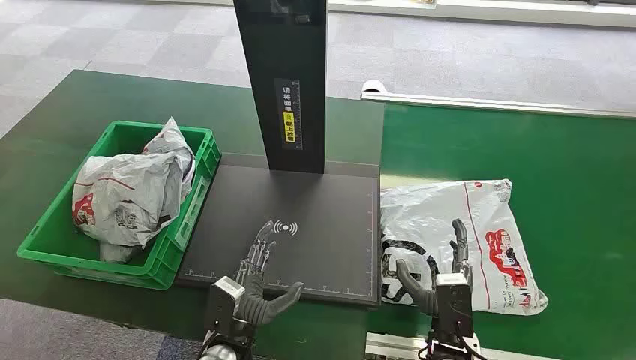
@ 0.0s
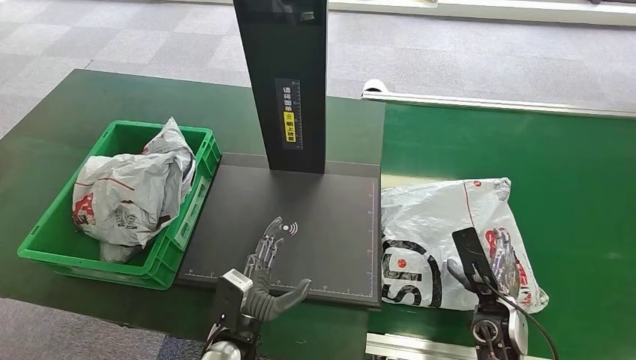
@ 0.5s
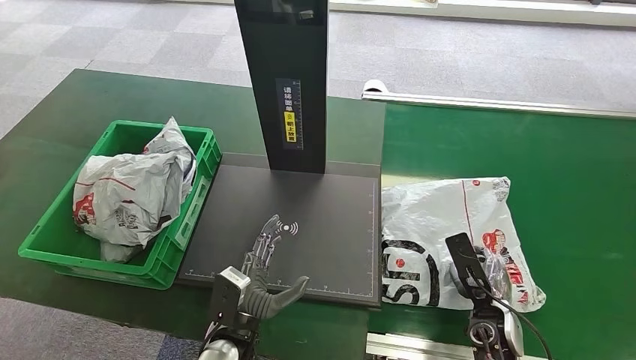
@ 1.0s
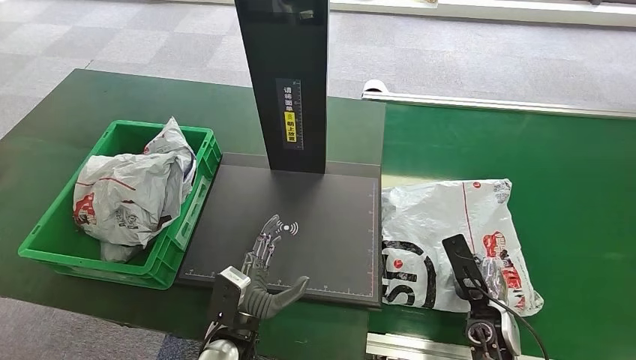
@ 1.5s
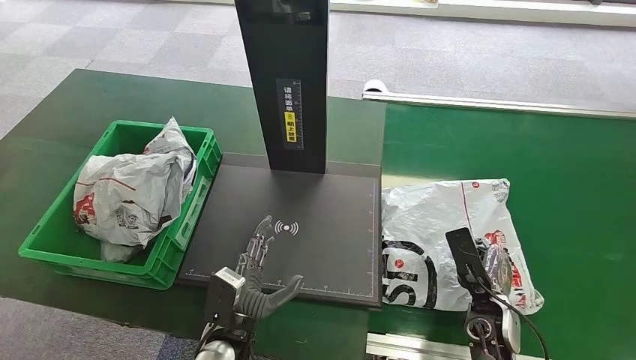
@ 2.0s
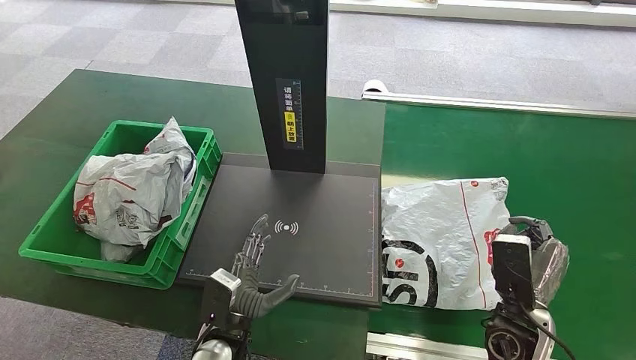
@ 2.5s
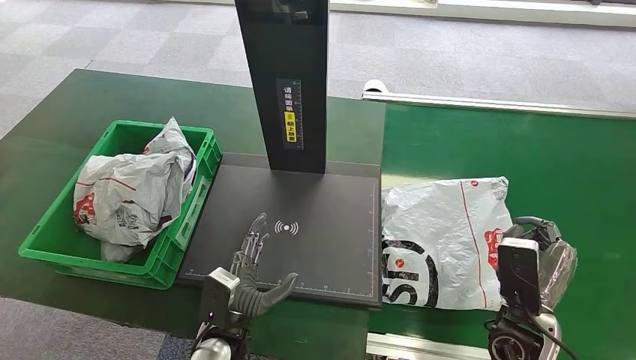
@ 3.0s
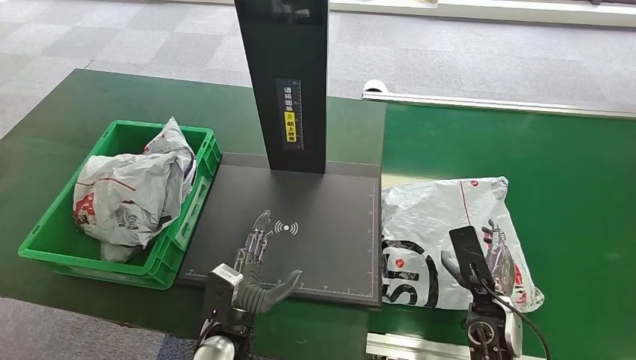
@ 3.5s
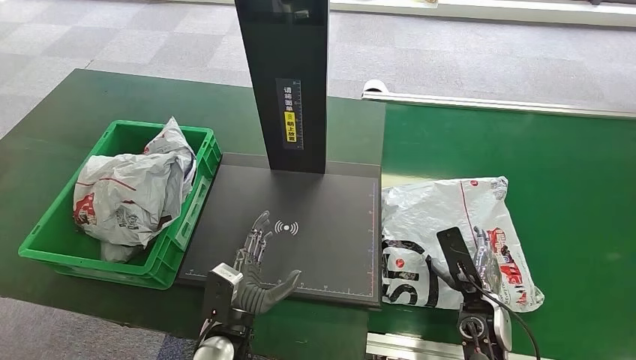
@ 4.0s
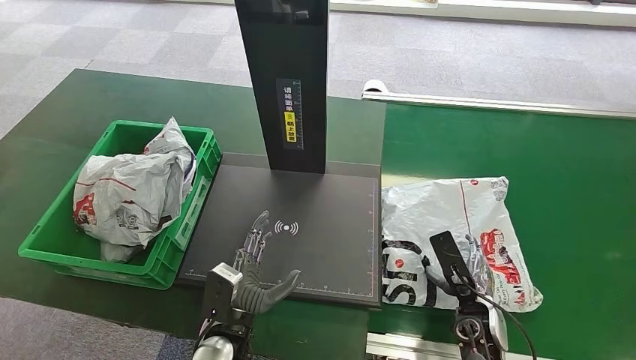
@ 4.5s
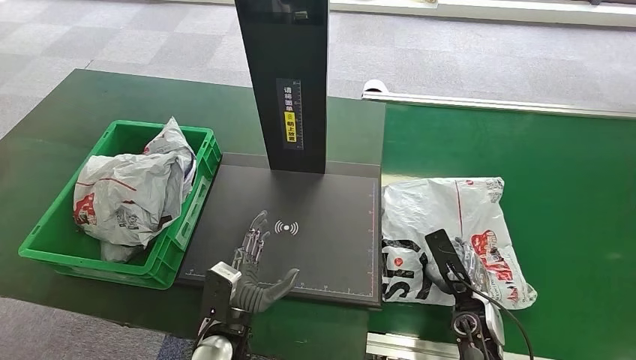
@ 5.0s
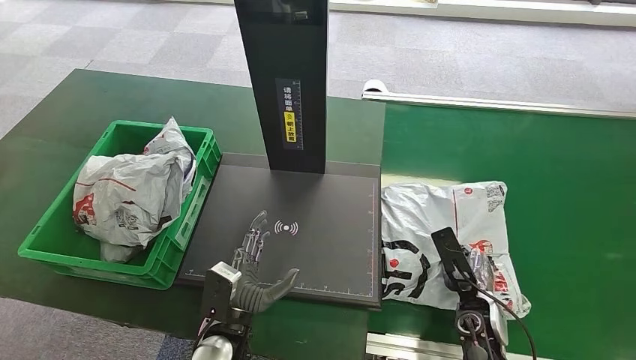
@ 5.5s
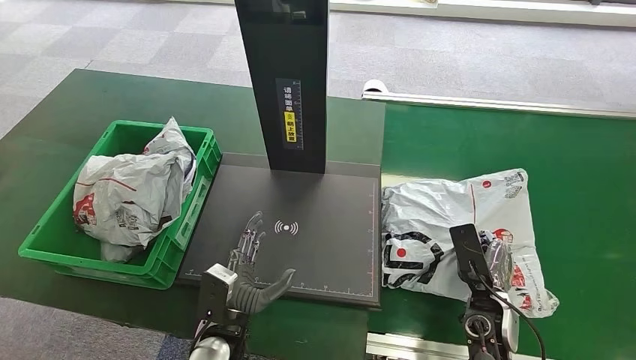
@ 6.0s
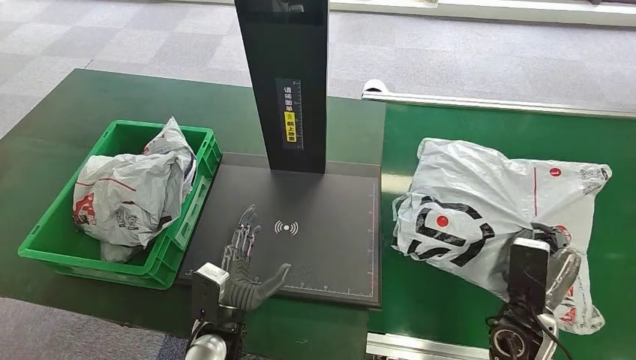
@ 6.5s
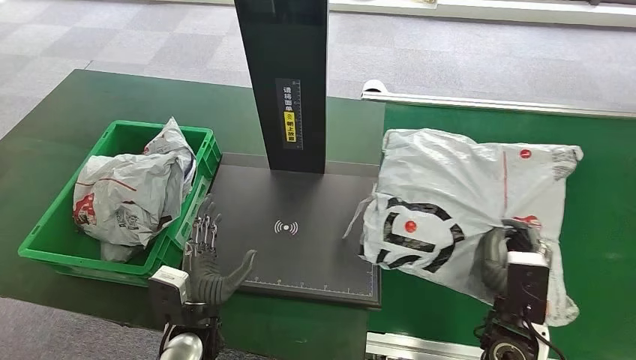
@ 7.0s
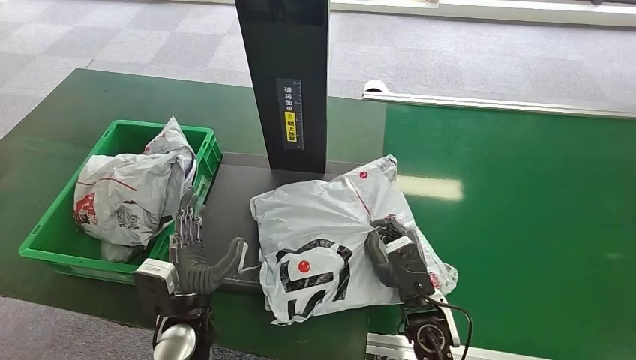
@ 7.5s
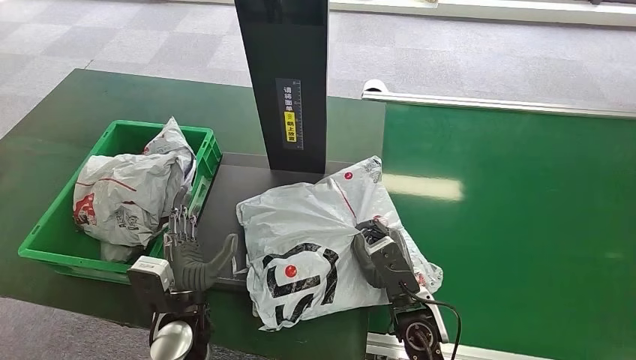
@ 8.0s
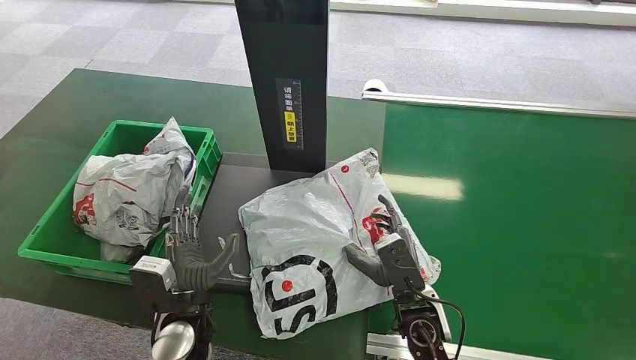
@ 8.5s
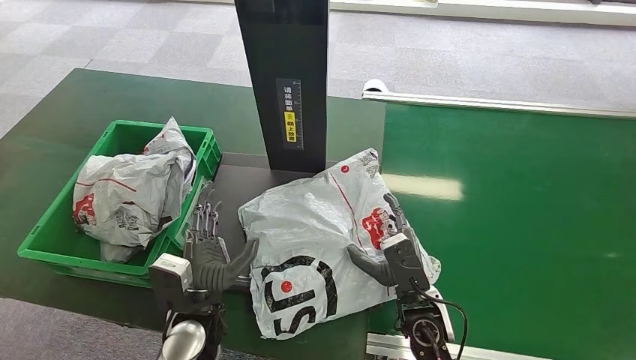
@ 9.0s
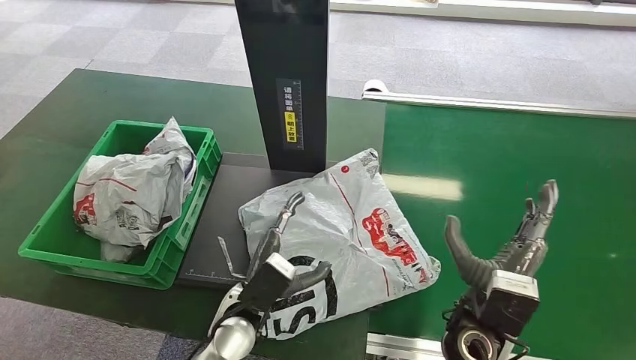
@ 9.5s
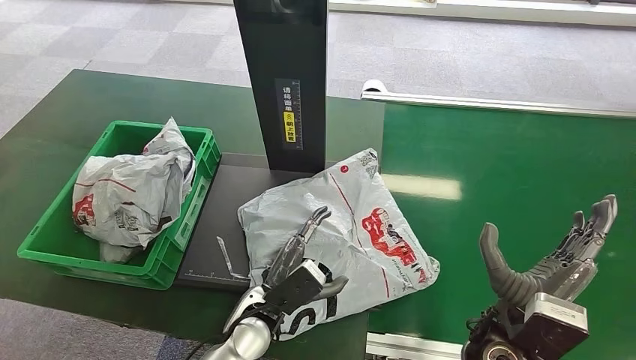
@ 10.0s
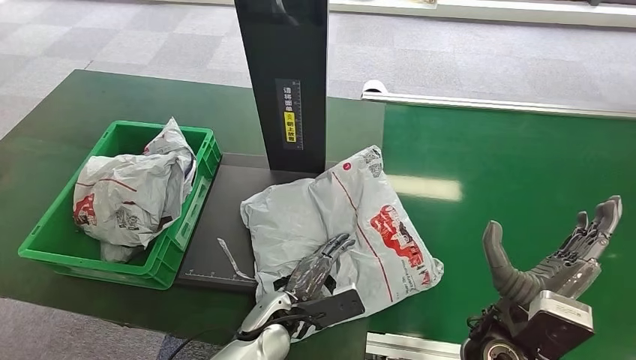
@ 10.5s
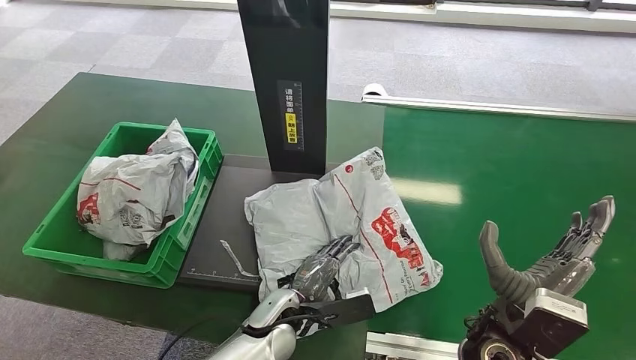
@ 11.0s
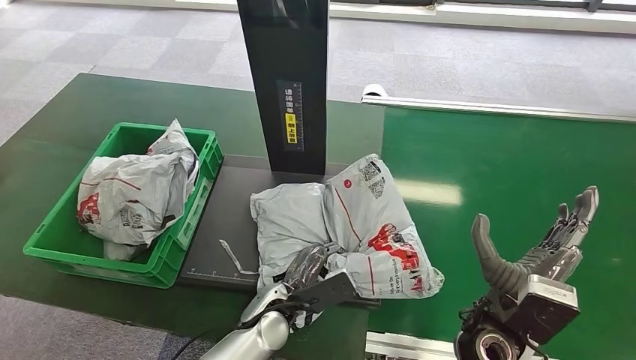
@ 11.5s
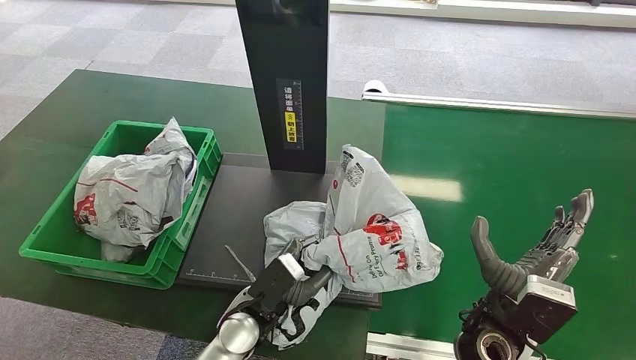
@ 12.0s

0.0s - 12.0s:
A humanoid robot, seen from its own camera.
Task of the whole recording: Weigh the package on the weighing device and place it in the left basket.
Step, 0.0s - 6.5s: Pick up the package from the conveyor belt.
Step, 7.0s - 8.0s: Place the package onto the inbound machine.
2.0s - 4.0s: The right hand goes upward and returns, approximately 10 cm each way.
4.0s - 6.0s: The hands make only small movements.
8.0s - 10.0s: The left hand moves to the right, some 10 cm, while the right hand goes roughly 10 cm to the right and upward.

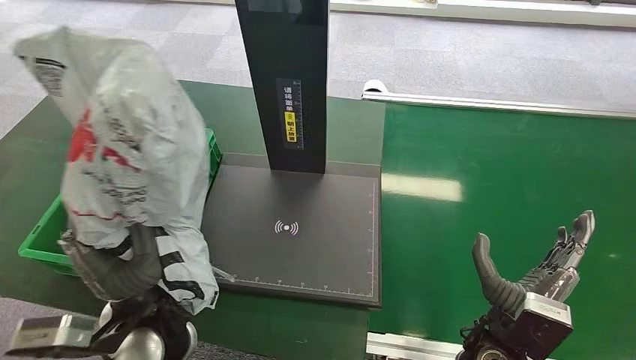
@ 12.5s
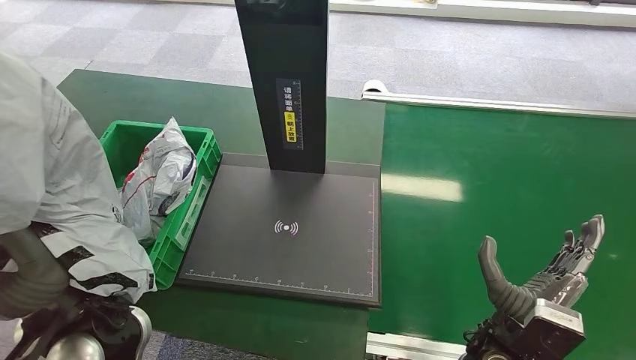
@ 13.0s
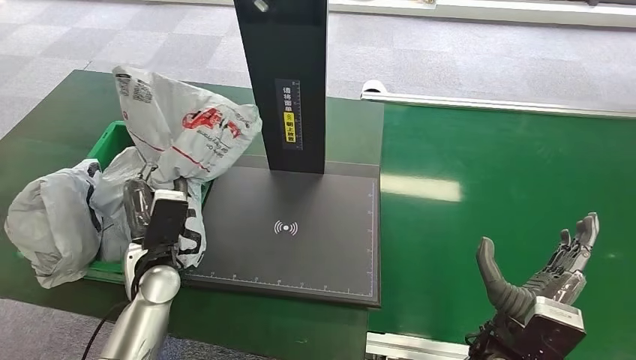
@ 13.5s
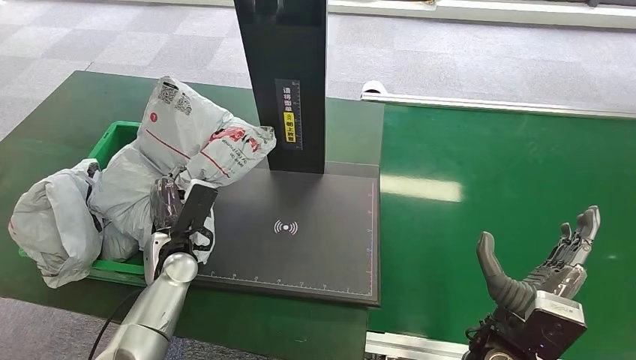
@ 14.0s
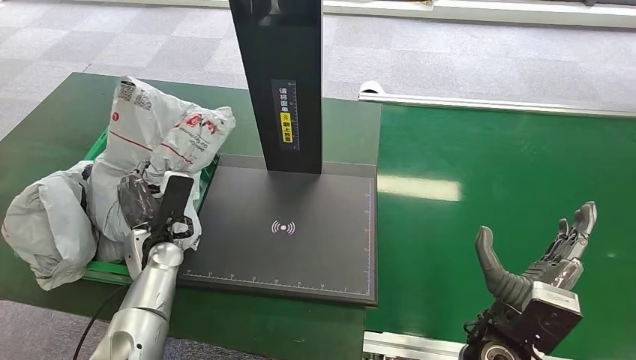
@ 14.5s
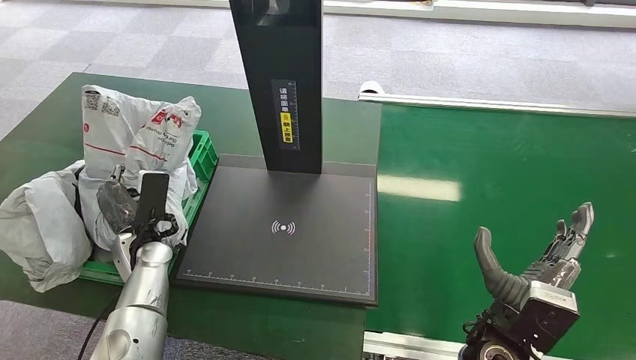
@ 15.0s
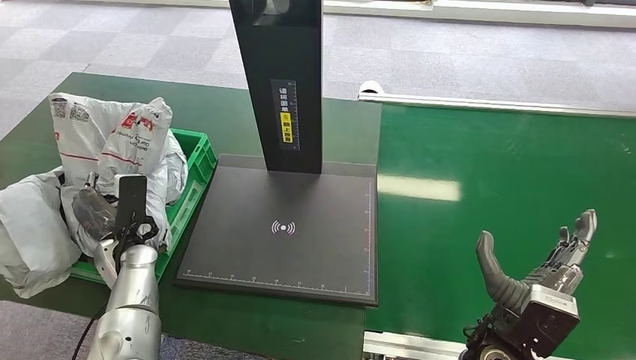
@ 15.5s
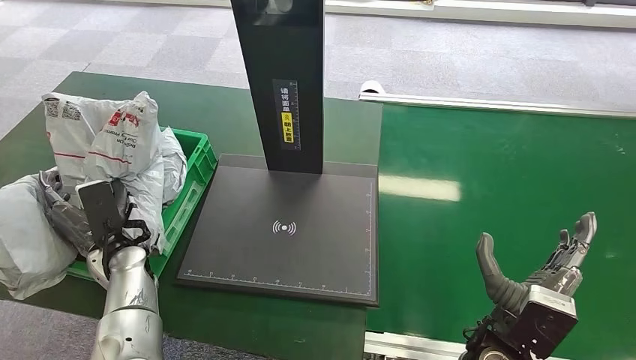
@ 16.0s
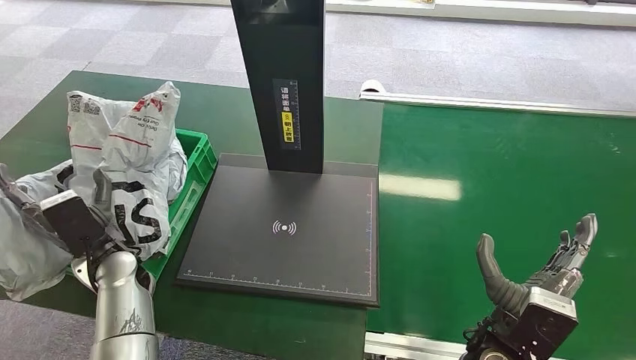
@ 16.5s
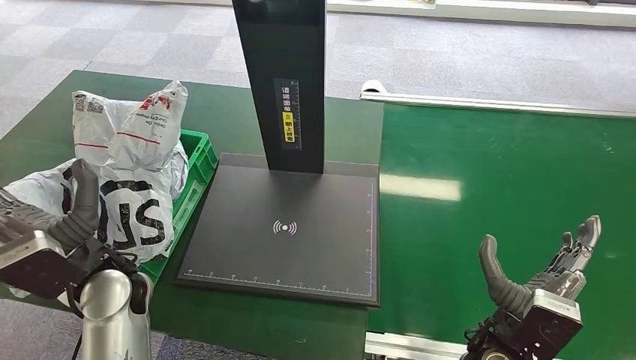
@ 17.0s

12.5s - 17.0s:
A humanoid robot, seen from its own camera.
Task of the whole recording: Weigh the package on the weighing device and place it in the left basket.
Step, 13.0s - 17.0s: Place the package into the parcel locker.

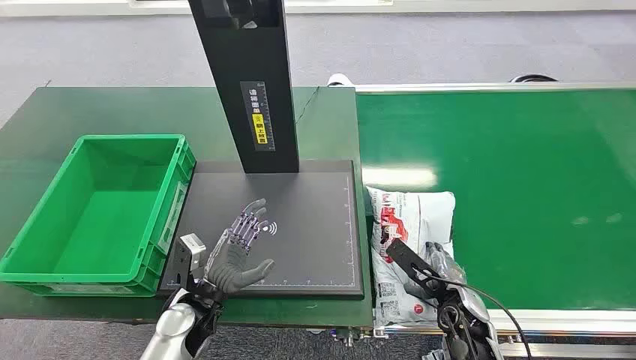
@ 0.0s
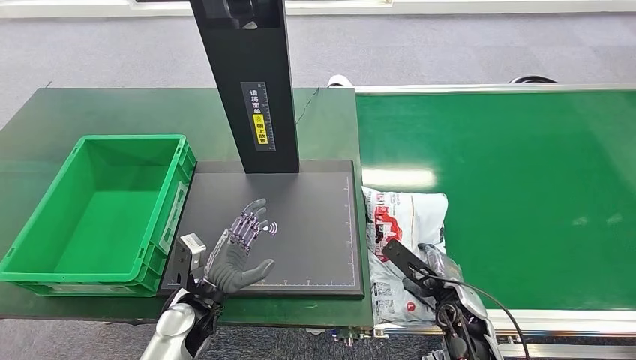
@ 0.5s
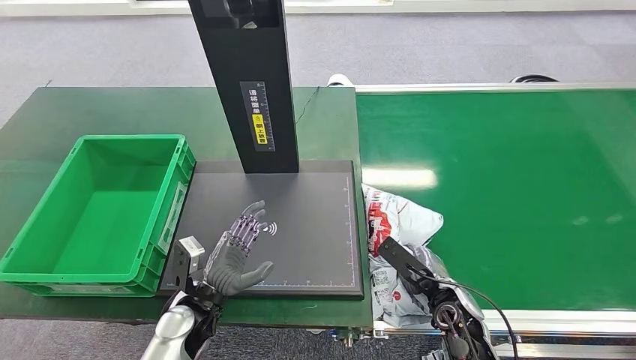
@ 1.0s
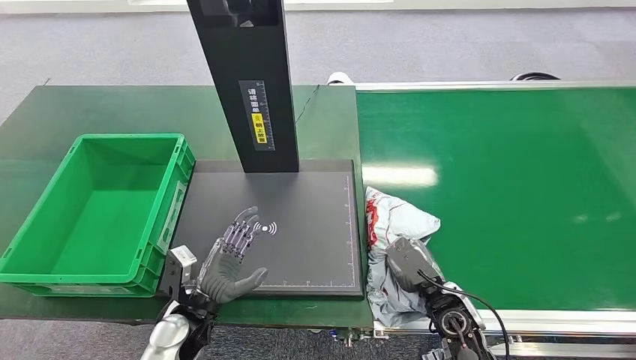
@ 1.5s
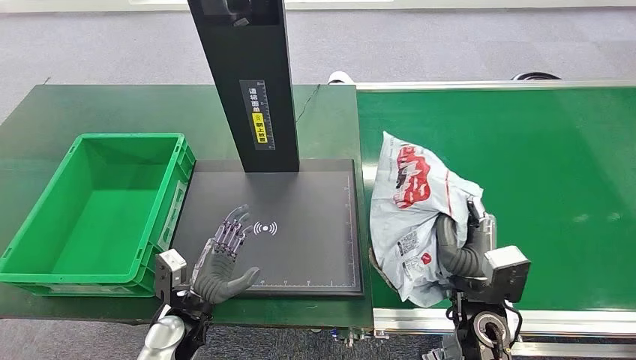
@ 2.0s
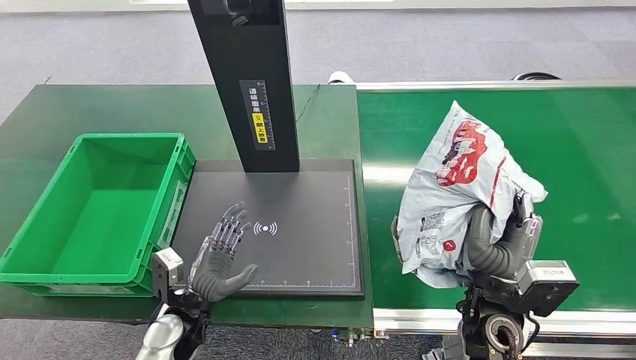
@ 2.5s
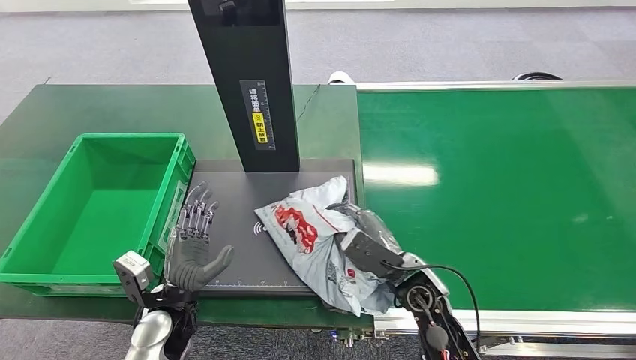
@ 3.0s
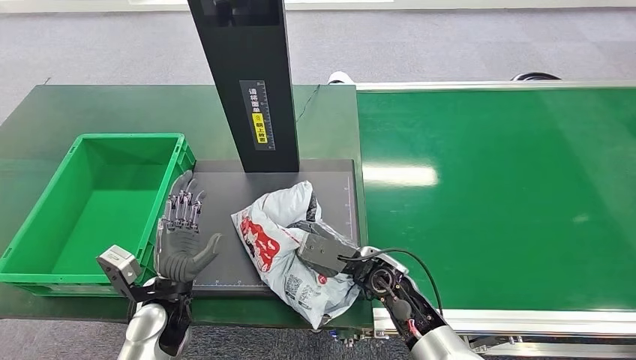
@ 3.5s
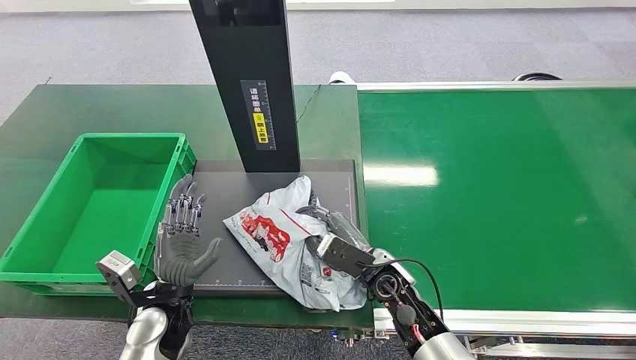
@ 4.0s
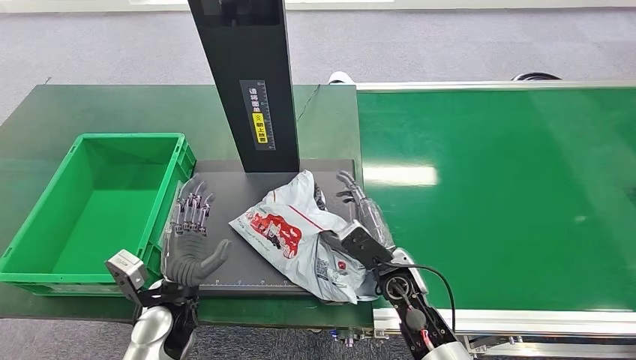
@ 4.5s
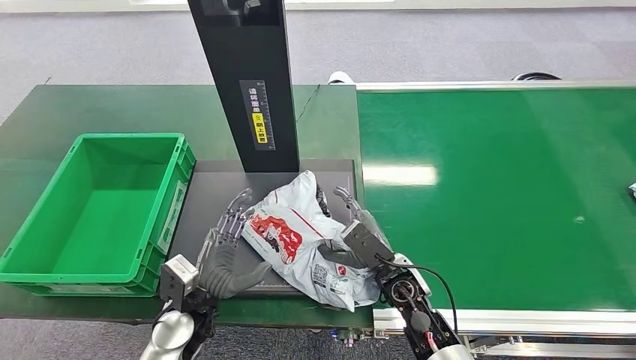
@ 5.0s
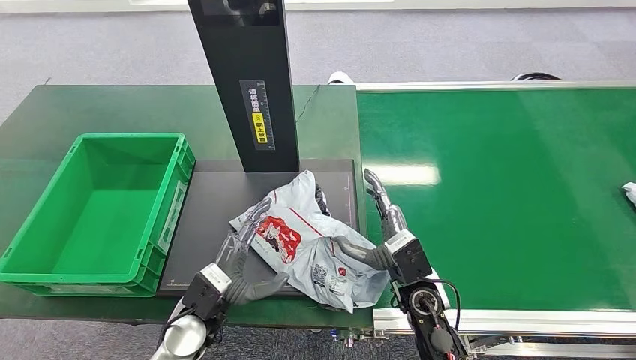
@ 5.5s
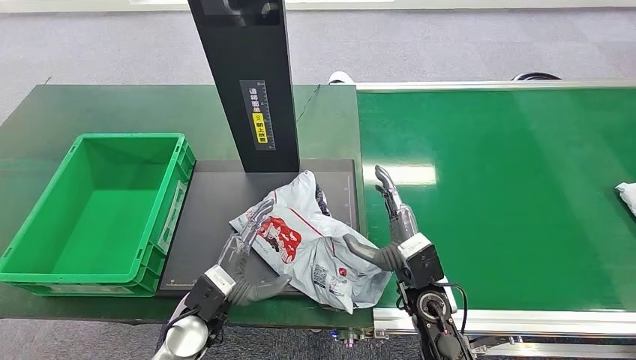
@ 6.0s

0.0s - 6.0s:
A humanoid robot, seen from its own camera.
Task of the whole recording: Weigh the package on the weighing device and place it in the left basket.
Step, 0.0s - 2.0s: Pick up the package from the conveyor belt.
Step, 3.0s - 5.0s: Place the package onto the inbound machine.
4.0s - 6.0s: The right hand shifts by some 5 cm.
